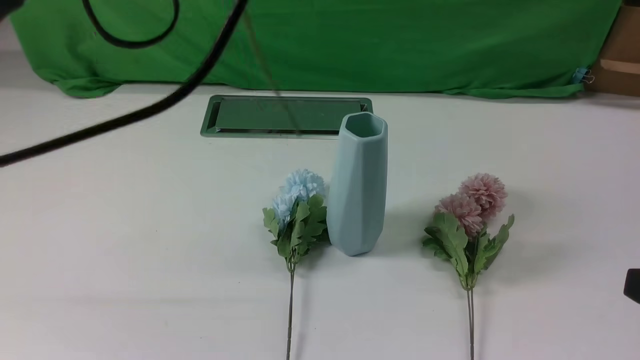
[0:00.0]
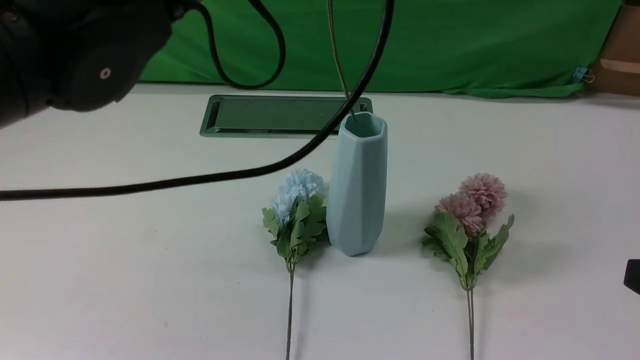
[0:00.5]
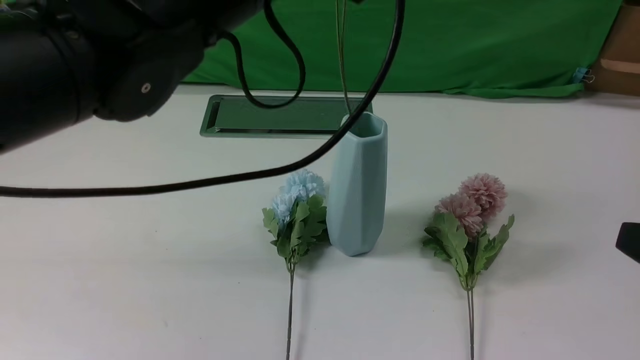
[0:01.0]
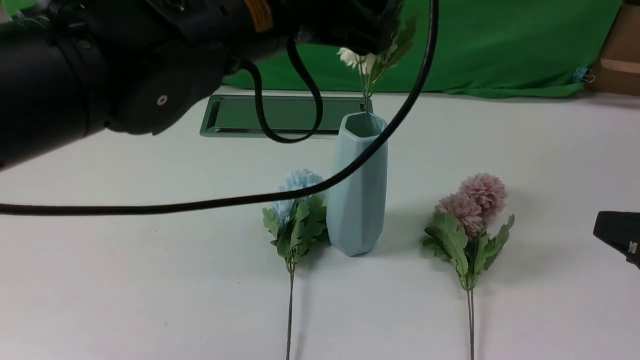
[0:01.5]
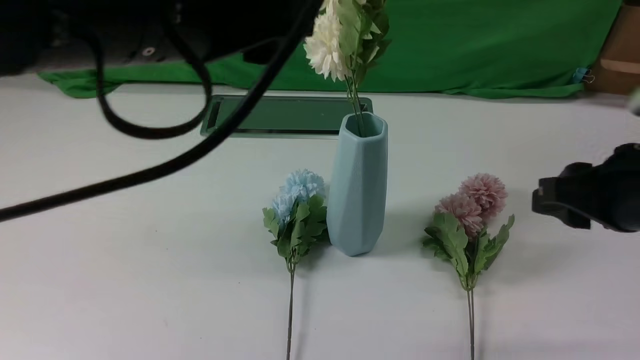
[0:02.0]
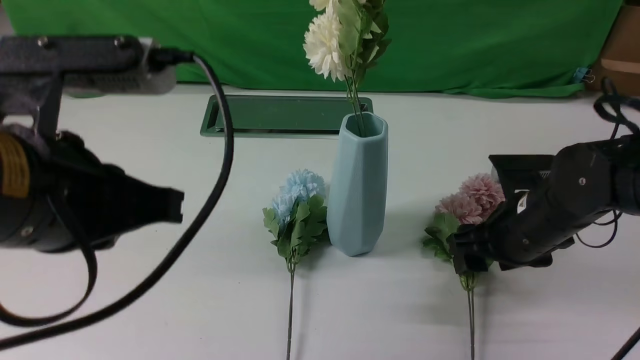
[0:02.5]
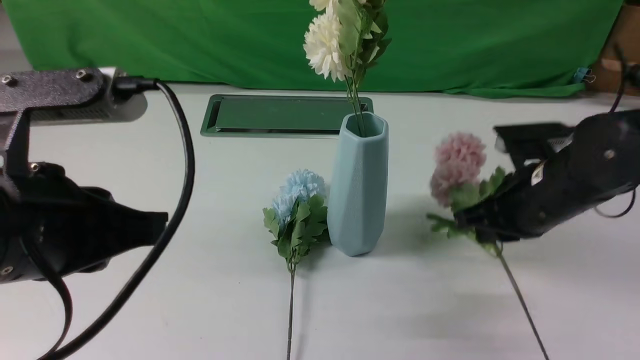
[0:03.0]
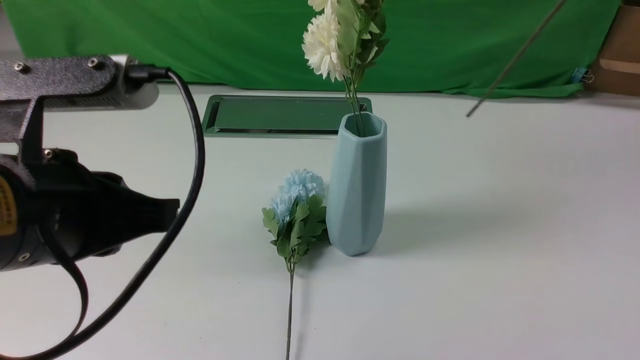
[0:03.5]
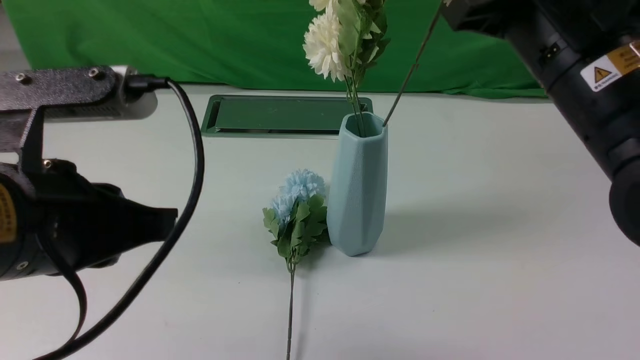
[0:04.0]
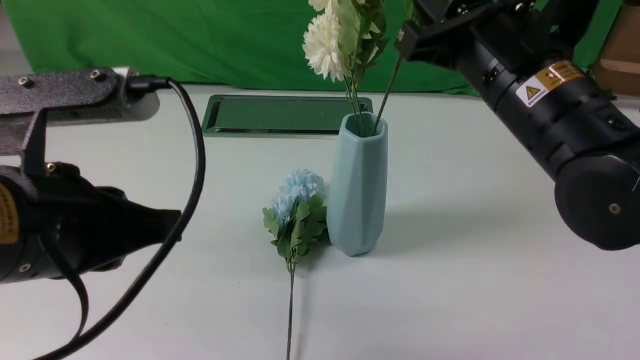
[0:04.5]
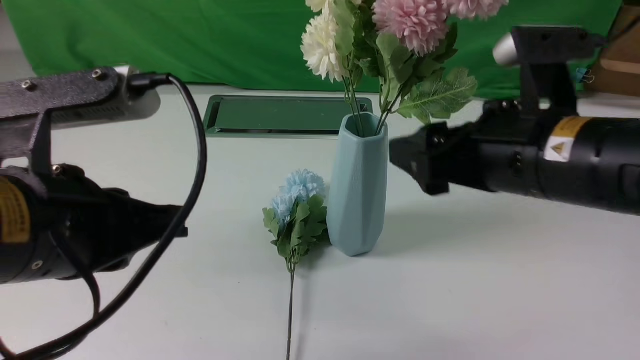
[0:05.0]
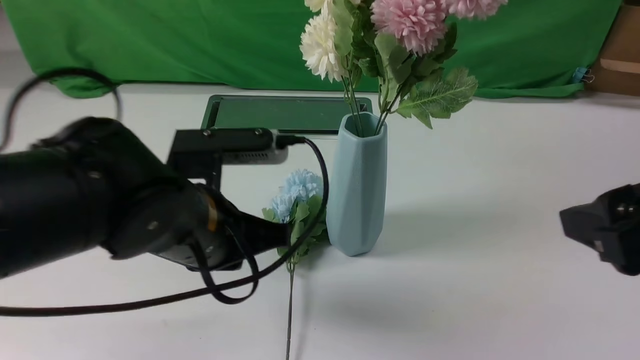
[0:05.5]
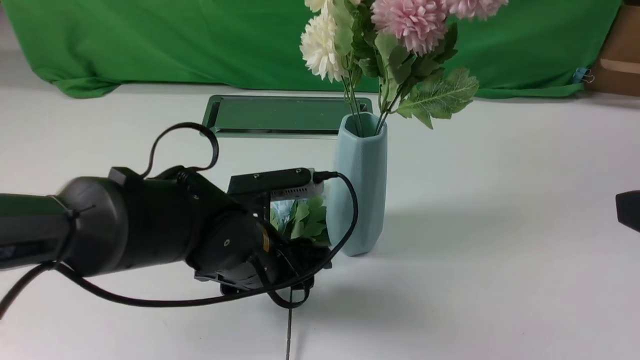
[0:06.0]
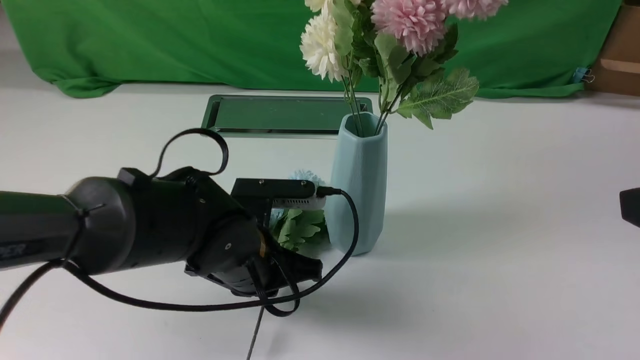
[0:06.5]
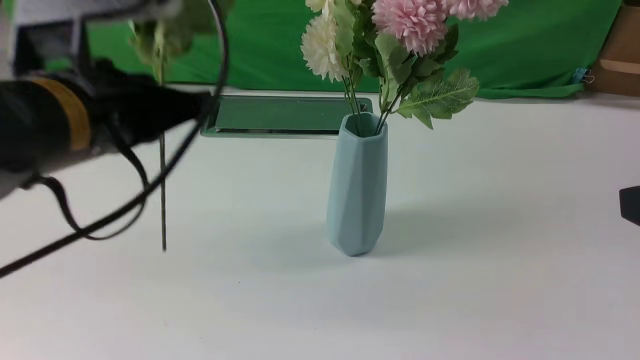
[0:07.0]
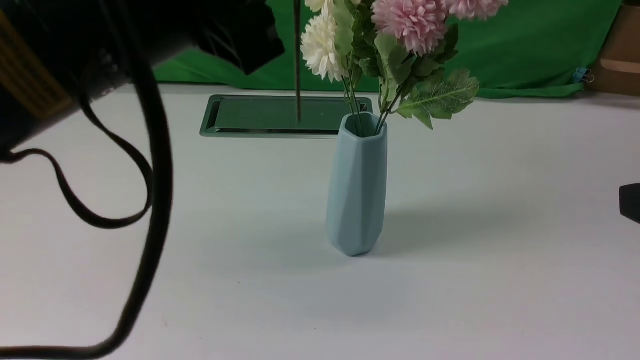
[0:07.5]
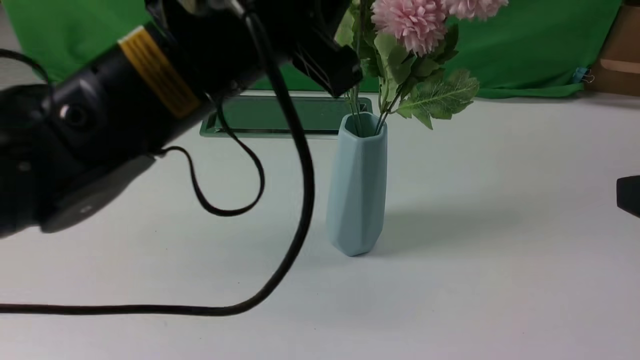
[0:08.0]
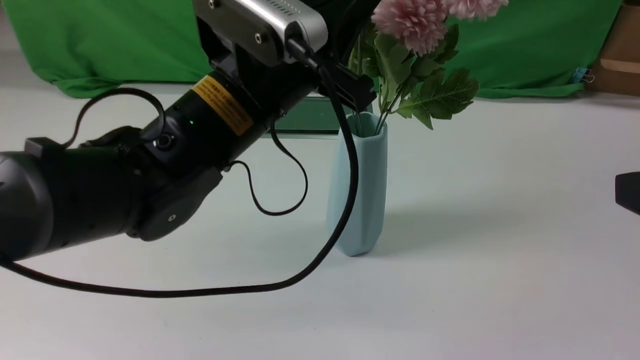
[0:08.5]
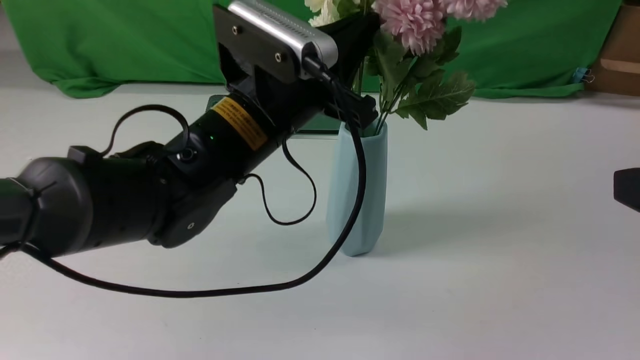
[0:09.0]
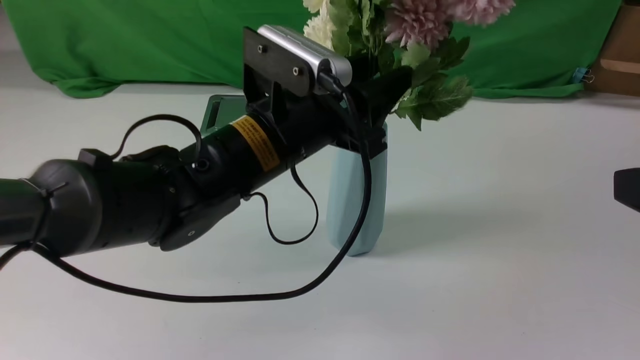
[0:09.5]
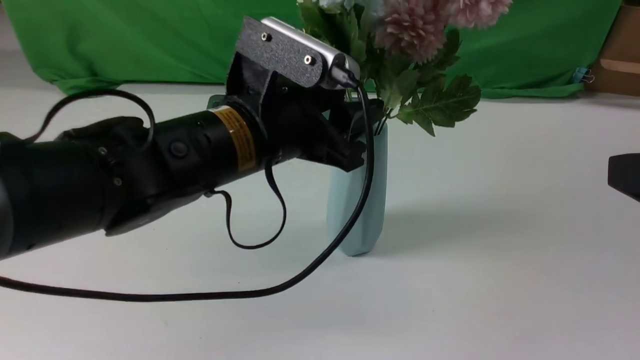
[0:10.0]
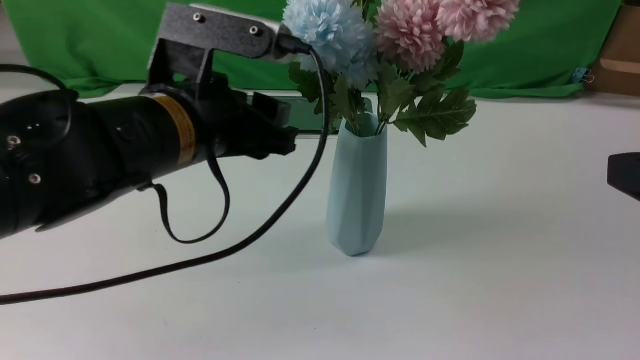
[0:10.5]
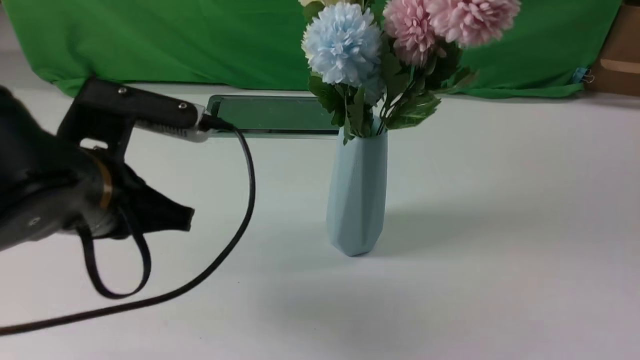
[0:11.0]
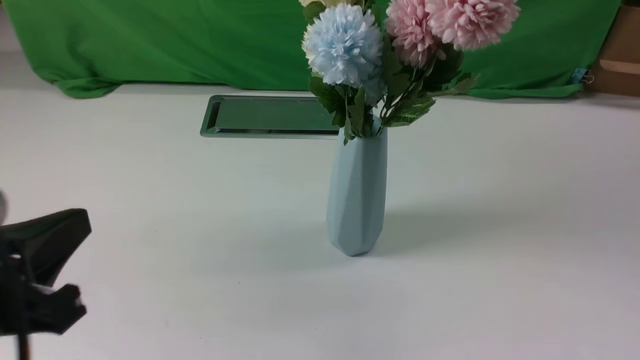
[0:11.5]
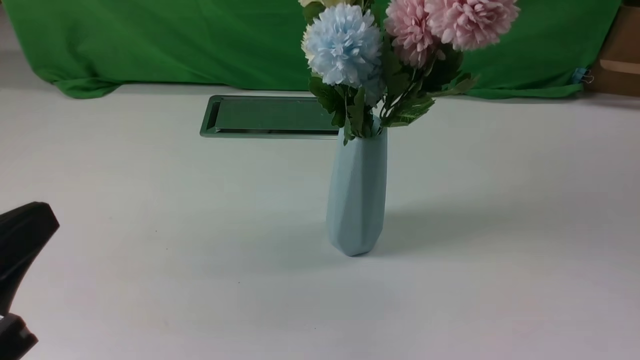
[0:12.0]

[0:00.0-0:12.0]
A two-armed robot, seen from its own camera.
Task of the whole recording: insert the flowers into the vase on the white table.
Step, 0:00.0 to 0:01.5: use the left arm to insert the flowers into the vase.
Step, 0:02.0 to 0:02.5: use the right arm to grab a bunch of fresh flowers.
Step, 0:03.0 to 0:05.0: use the right arm to insert the flowers into the vase.
Step, 0:05.5 to 0:06.5: use the left arm to grab a bunch of fresh flowers.
Step, 0:07.0 to 0:10.0: use the left arm to insert the flowers into the vase.
0:00.0 to 0:02.0: The left gripper heads backward, covering about 5 cm, and opens. The right gripper travels forward by approximately 15 cm, and opens.
0:02.0 to 0:04.0: The left gripper moves downward, backward and to the left, roughly 10 cm, and closes up. The right gripper swings up and down, about 25 cm each way, with 2 reversals, and closes its fingers.
0:04.0 to 0:06.0: The right gripper travels backward and to the right by some 15 cm, and opens its fingers, while the left gripper moves downward, forward and to the right, about 25 cm, and opens.
0:06.0 to 0:08.0: The left gripper heads upward, covering roughly 20 cm, and closes up.
0:08.0 to 0:10.0: The left gripper is displaced downward by approximately 10 cm, and opens its fingers.
0:10.0 to 0:12.0: The left gripper goes some 25 cm backward and to the left, and closes up. The right gripper goes roughly 20 cm backward and to the right, and closes up.

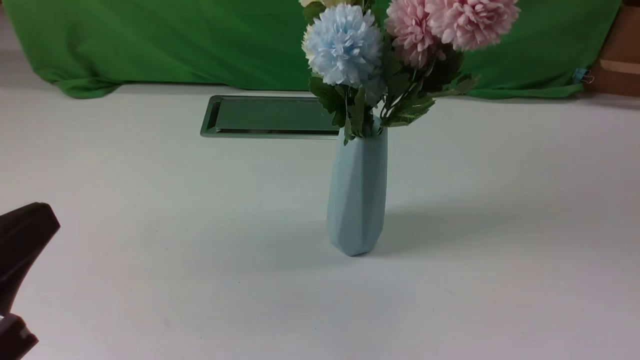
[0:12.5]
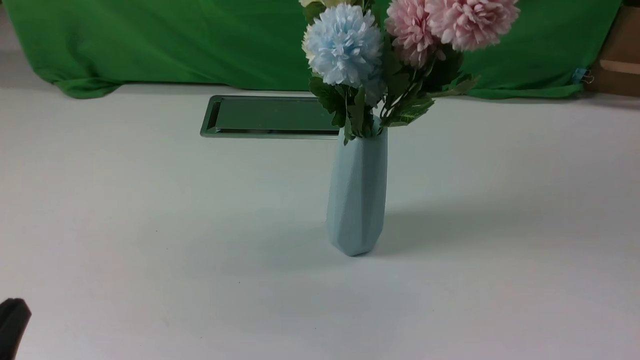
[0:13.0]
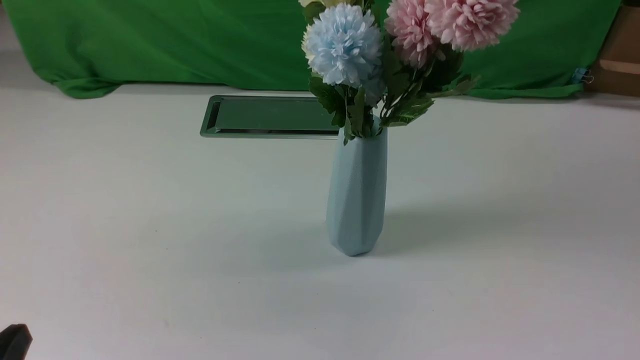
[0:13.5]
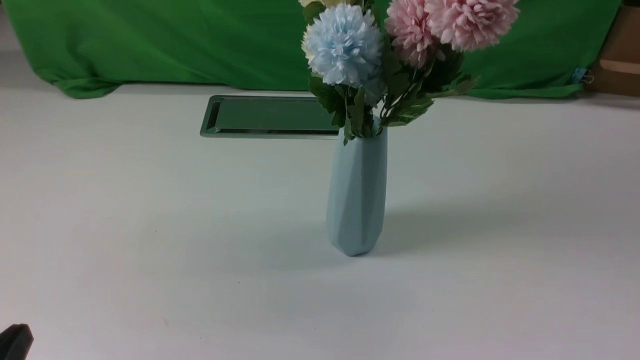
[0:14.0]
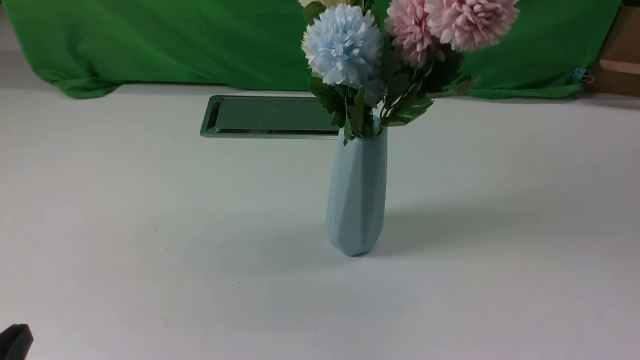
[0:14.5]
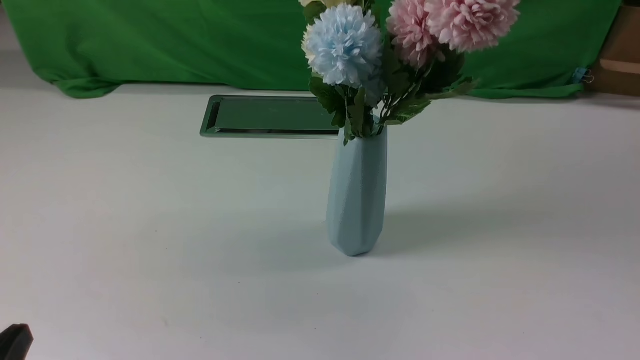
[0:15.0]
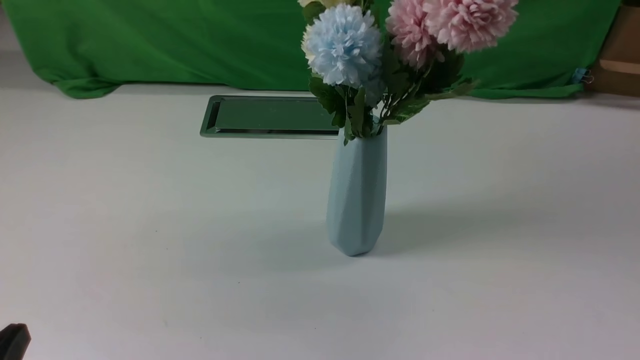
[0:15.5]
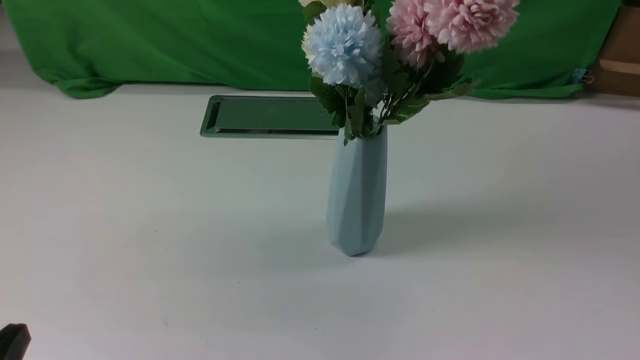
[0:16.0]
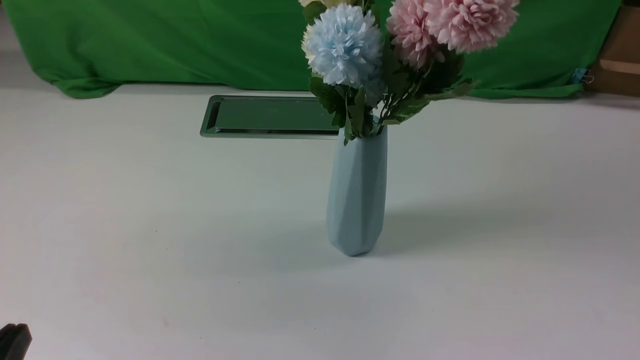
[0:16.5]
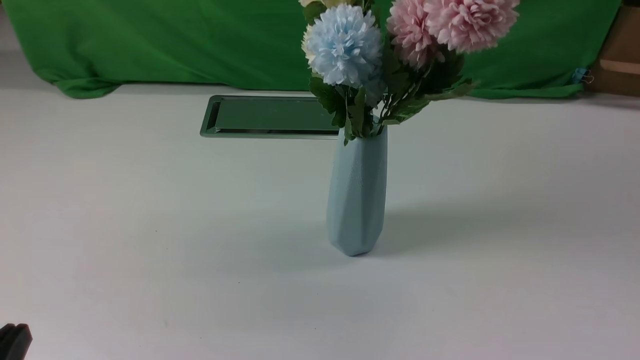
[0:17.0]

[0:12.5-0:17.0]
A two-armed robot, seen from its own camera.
Task of the whole recording: insert the flowers into the vase on the white table.
0:12.5 to 0:14.5: The left gripper moves downward, approximately 10 cm.
0:14.5 to 0:17.0: The right gripper moves downward, about 20 cm.

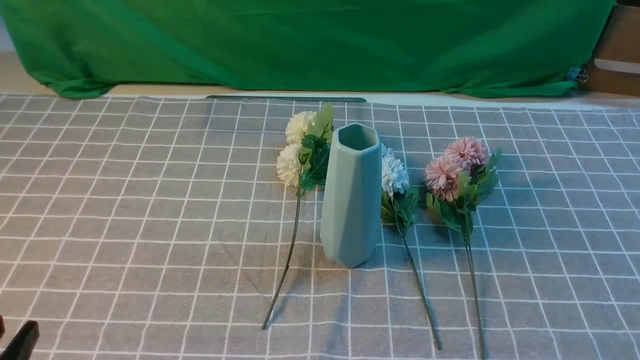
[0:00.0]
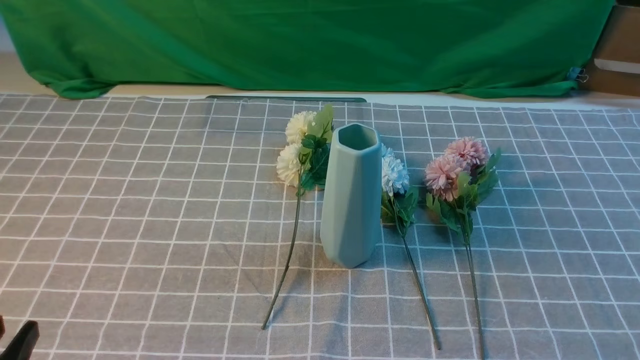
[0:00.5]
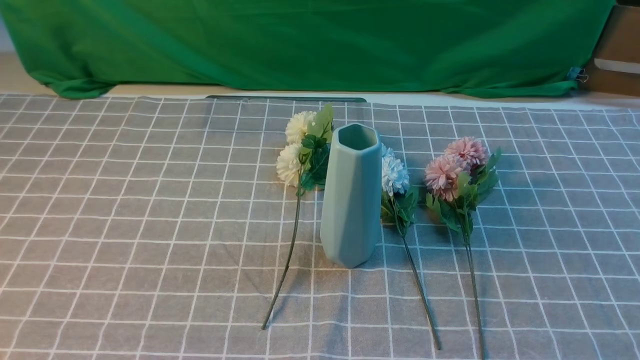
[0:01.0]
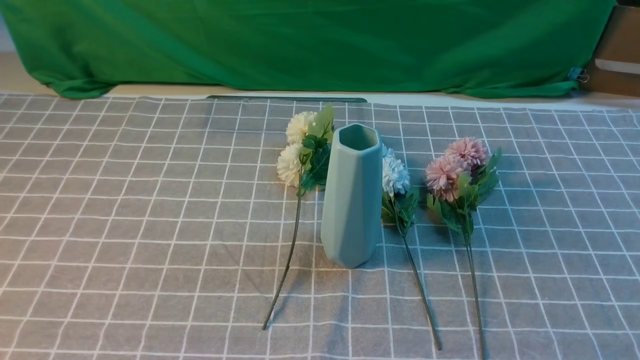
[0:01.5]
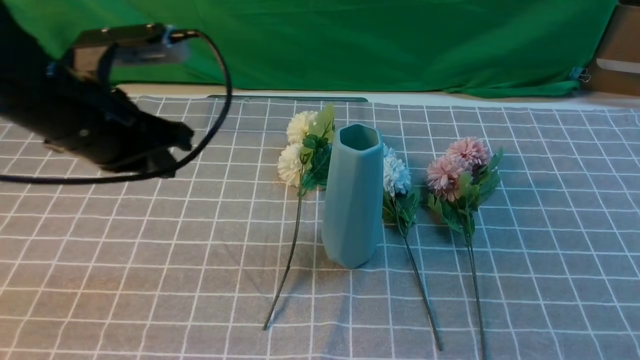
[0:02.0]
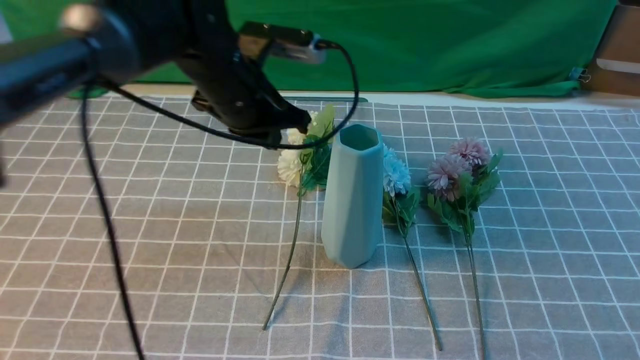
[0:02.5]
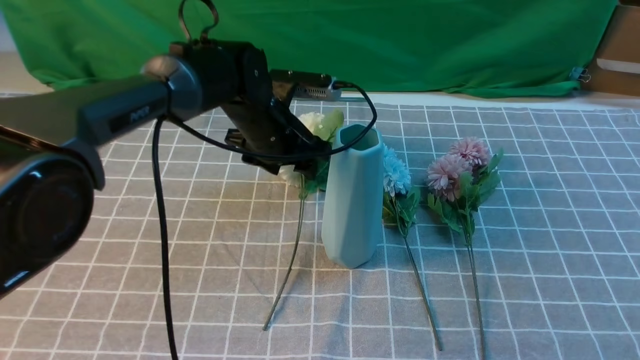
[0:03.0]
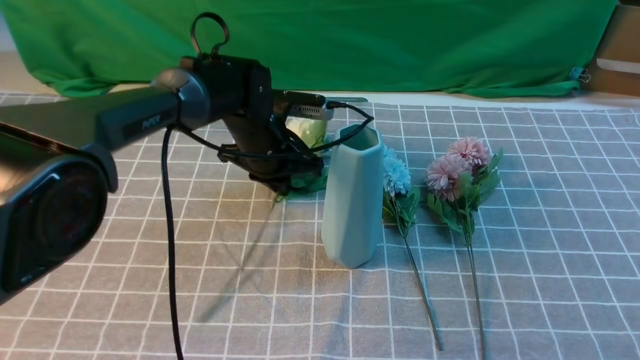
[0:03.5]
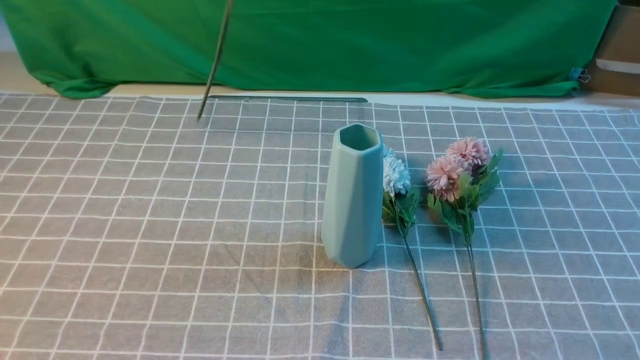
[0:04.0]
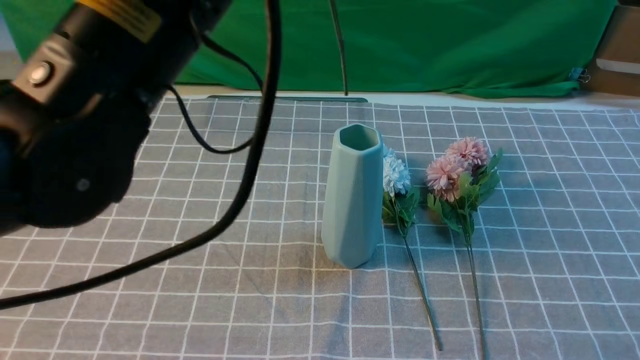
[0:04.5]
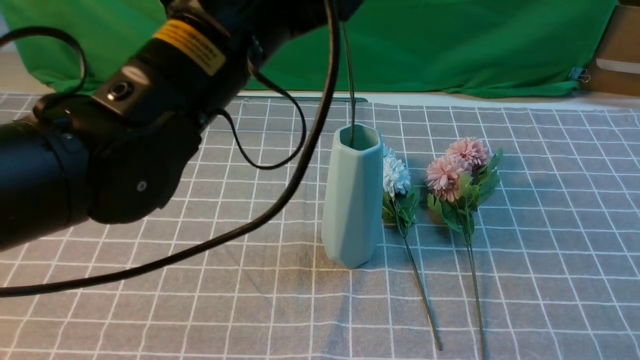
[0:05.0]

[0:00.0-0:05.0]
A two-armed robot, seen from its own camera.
Task of the whole recording: insert the flowers into the vase on the table with the grey tablecloth.
Step, 0:00.0 to 0:03.0: use the left arm to grab a bunch of fresh flowers.
0:00.0 to 0:02.5: The right gripper moves upward, approximately 10 cm, and closes. Meanwhile the left gripper goes about 40 cm forward and to the right.
0:02.5 to 0:05.0: The left gripper moves up and down over roughly 25 cm, changing direction 2 times, and opens, then closes again.
